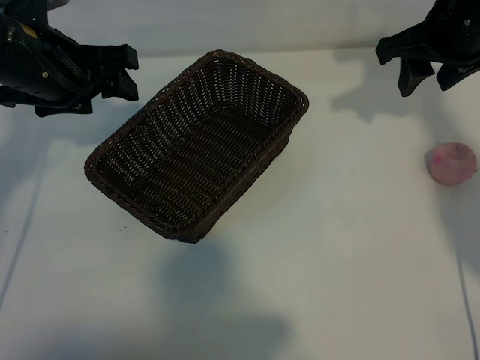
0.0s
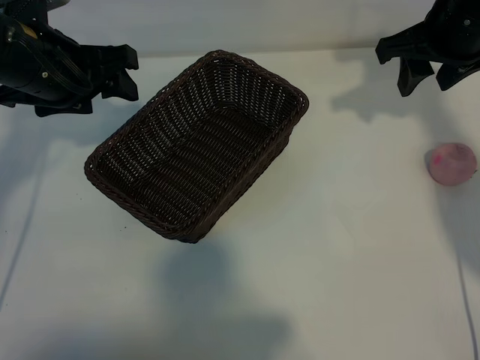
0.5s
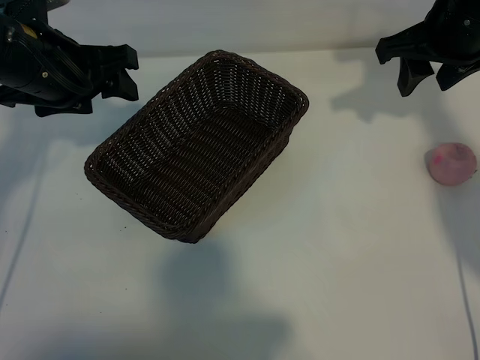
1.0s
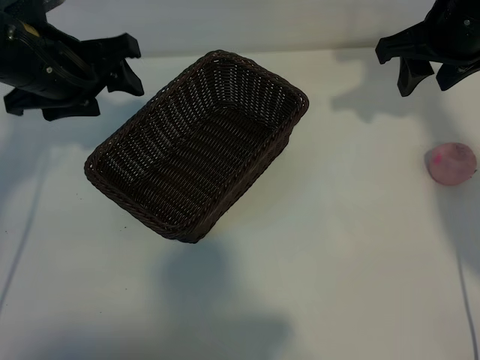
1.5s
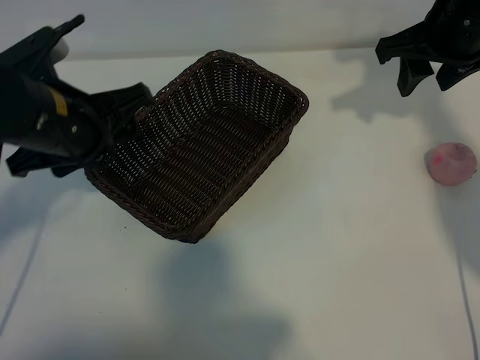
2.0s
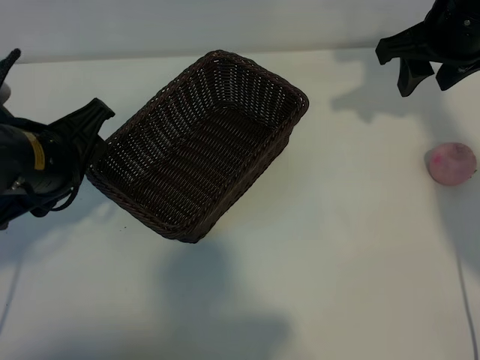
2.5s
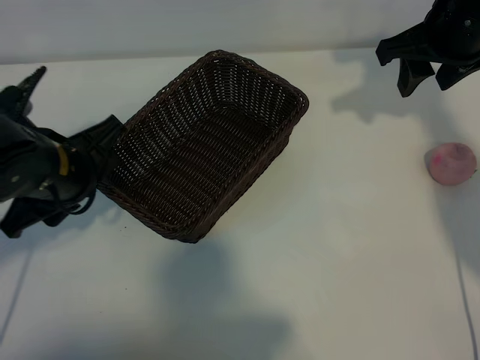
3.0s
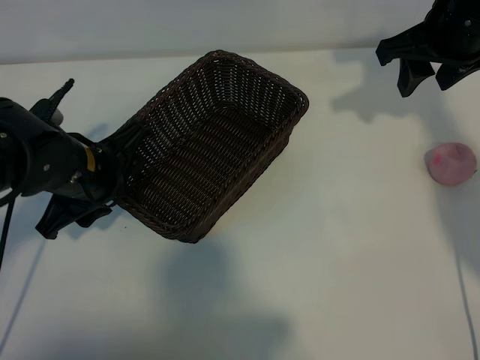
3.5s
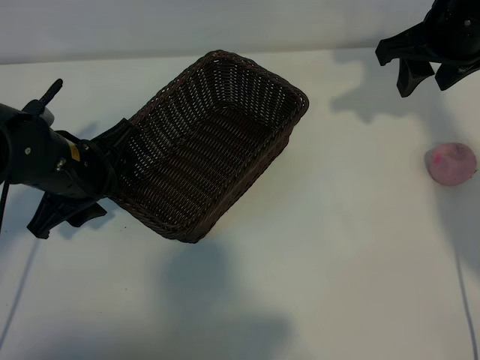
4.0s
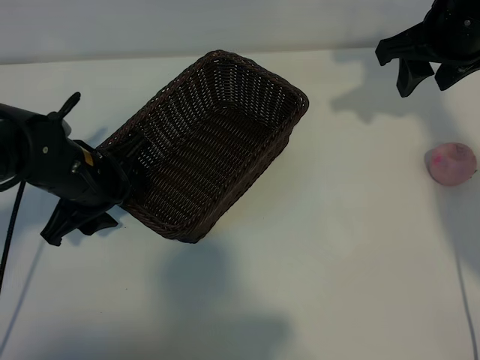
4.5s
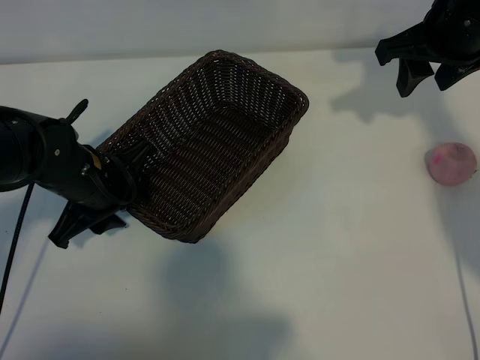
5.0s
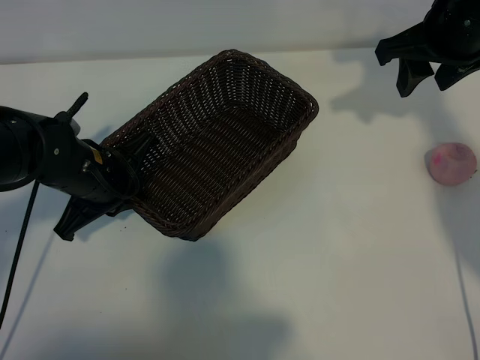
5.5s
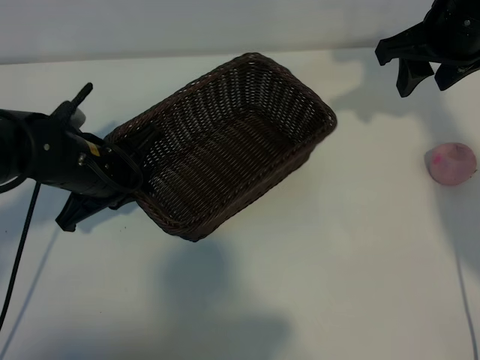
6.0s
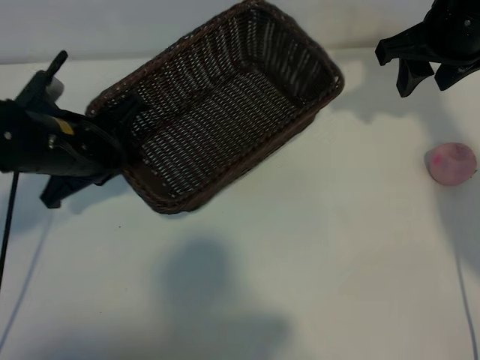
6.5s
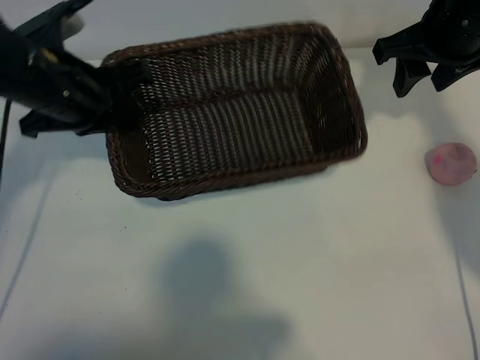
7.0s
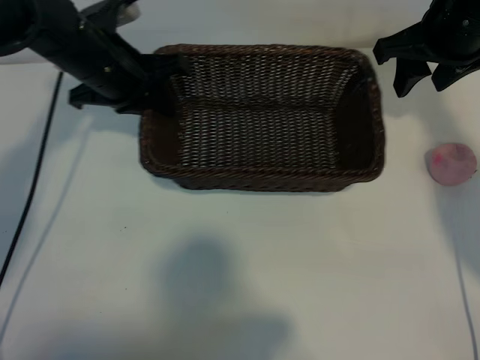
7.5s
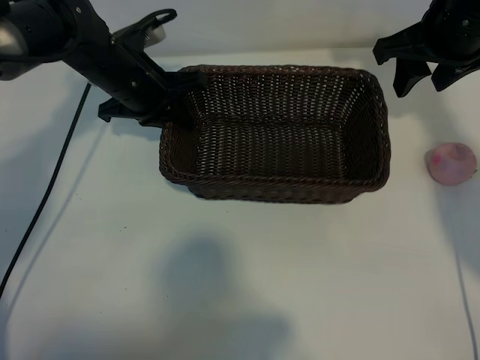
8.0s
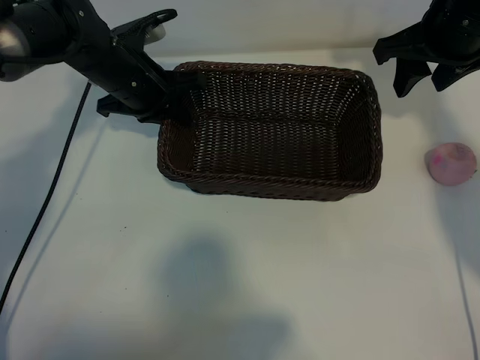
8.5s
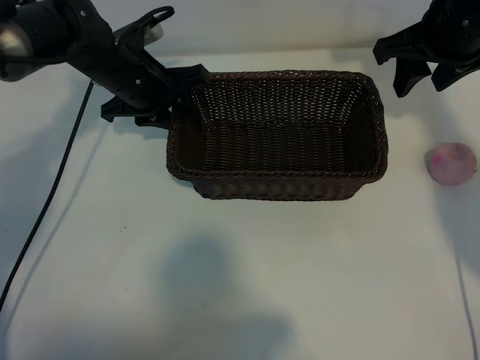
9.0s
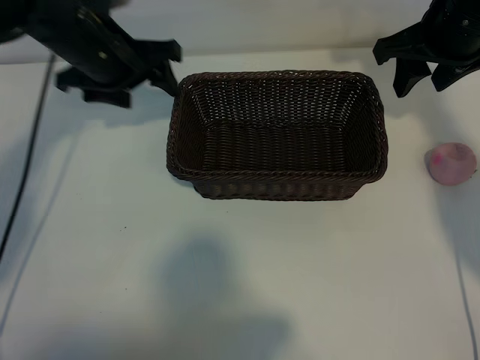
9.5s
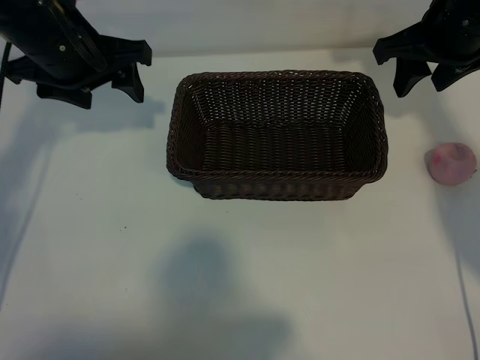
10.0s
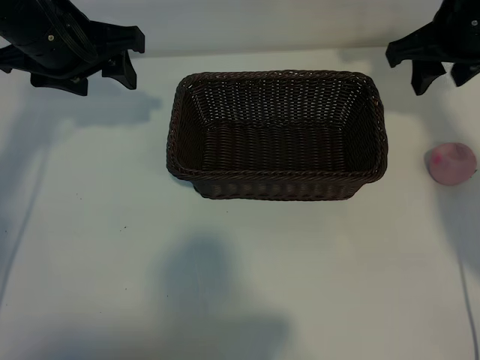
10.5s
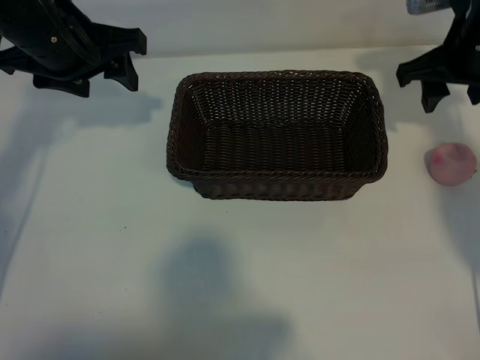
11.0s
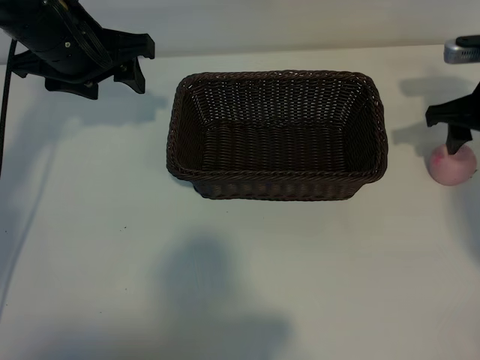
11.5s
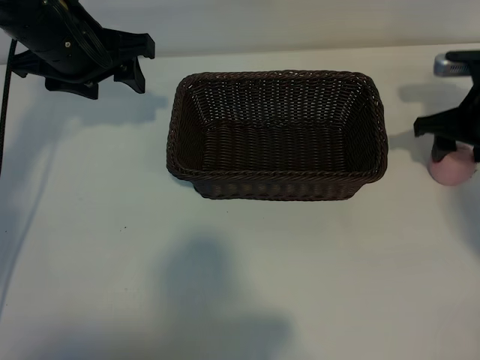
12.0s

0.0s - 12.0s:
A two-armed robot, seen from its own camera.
Task of the whole recording: pick up the peach and put it into the basket.
Step, 1.5s - 5.5s: Grasp the basket with left gripper.
Step, 6.0s - 9.0s: Place the basket in the center of view with left gripper.

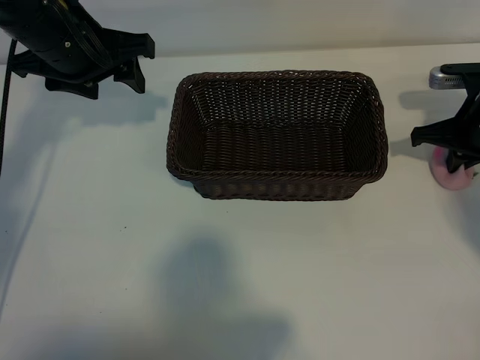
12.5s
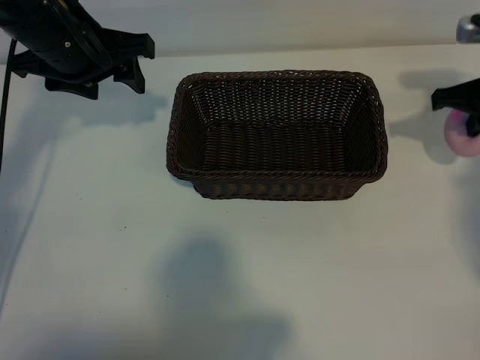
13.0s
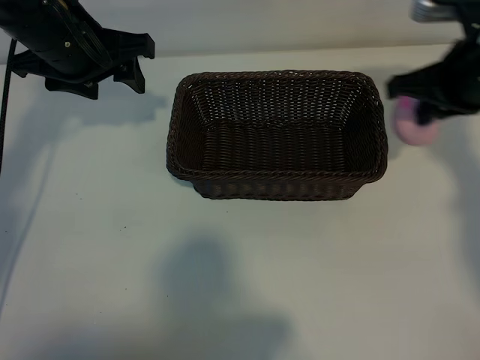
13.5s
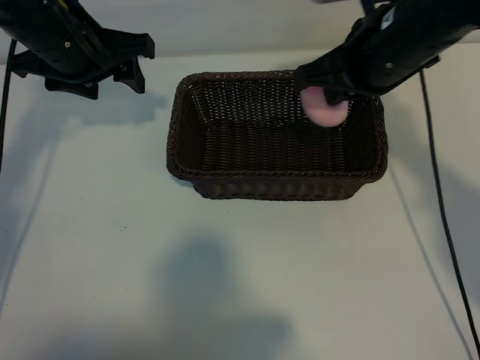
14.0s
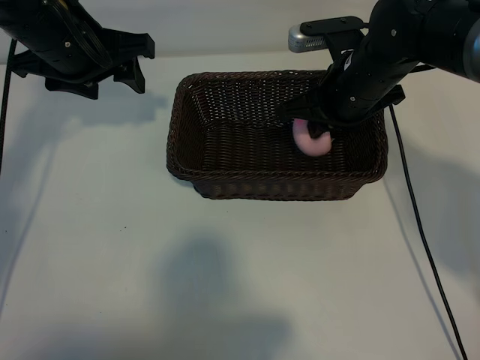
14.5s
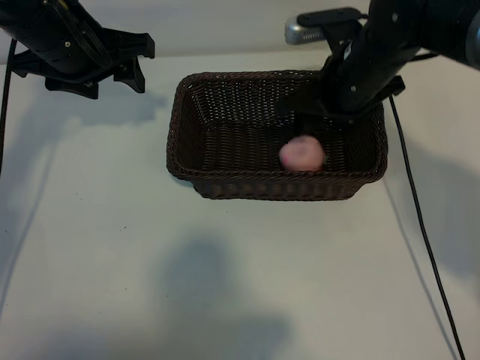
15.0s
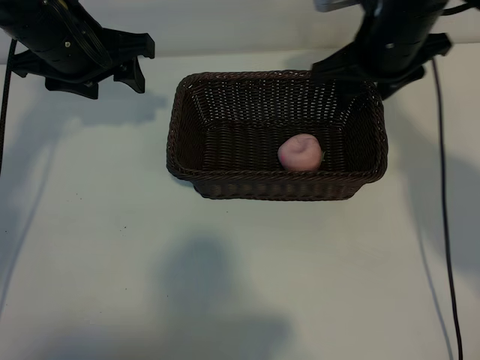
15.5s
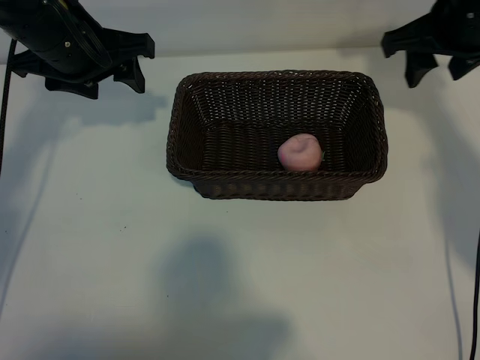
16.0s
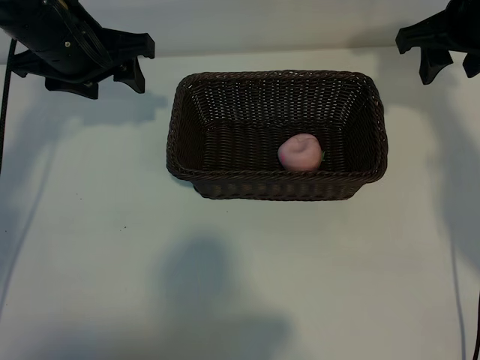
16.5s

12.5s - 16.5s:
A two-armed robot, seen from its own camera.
Task of the whole recording: pick up the peach and put it into the basket.
Step, 13.0s - 15.0s: Place the peach in the basket with right gripper.

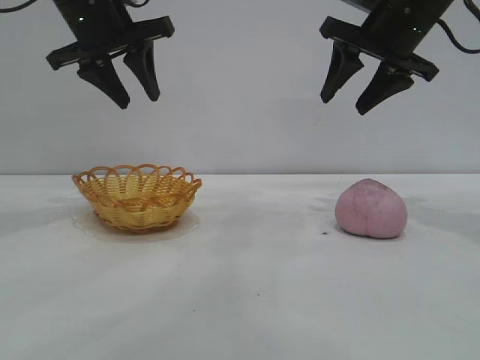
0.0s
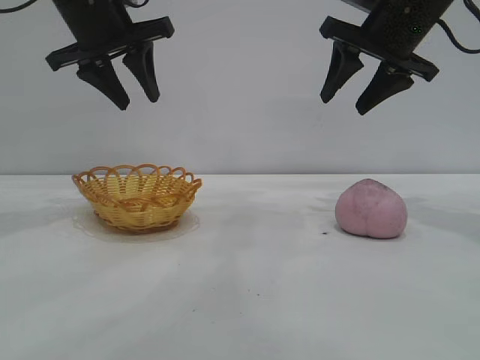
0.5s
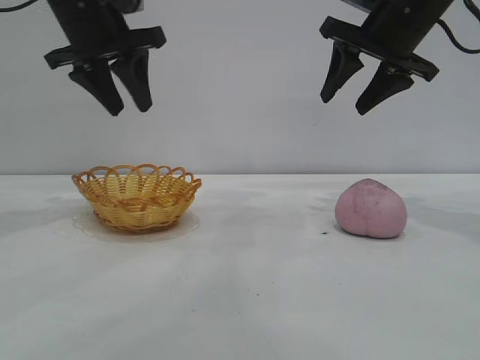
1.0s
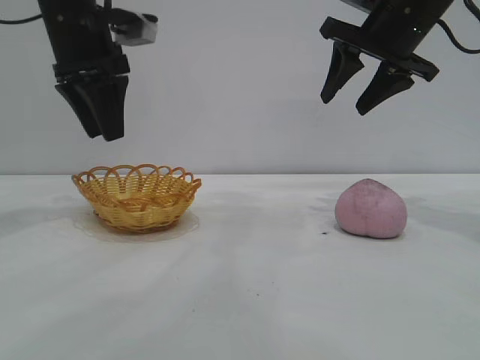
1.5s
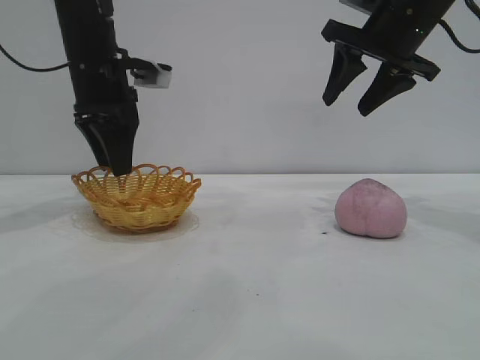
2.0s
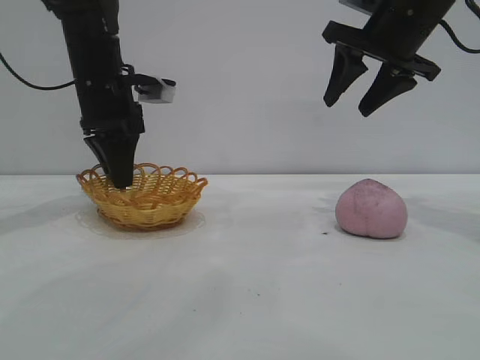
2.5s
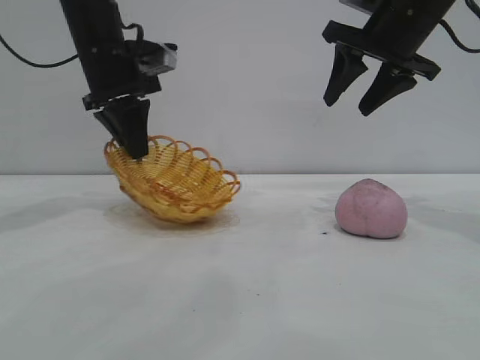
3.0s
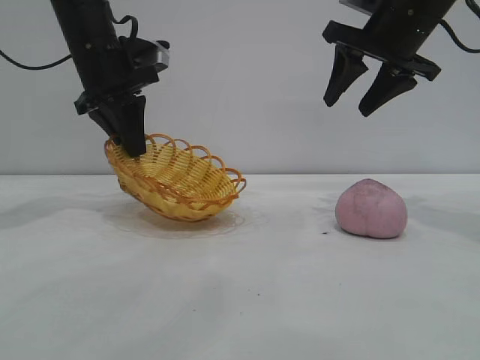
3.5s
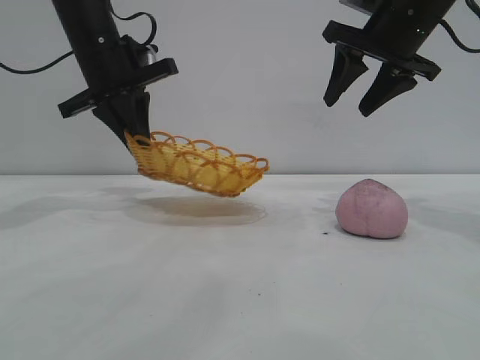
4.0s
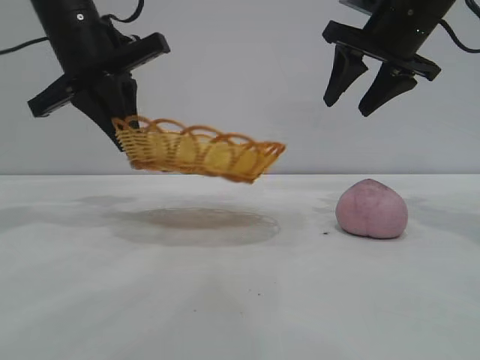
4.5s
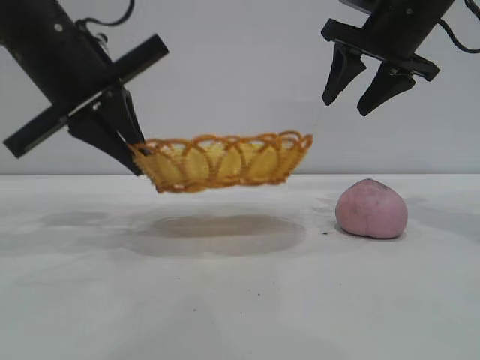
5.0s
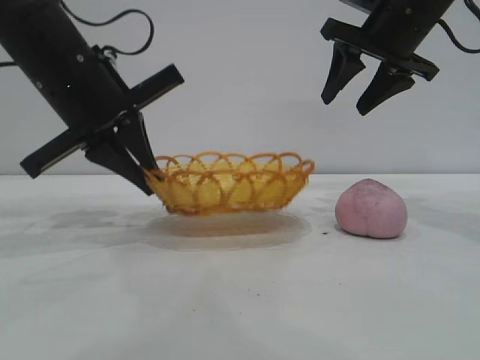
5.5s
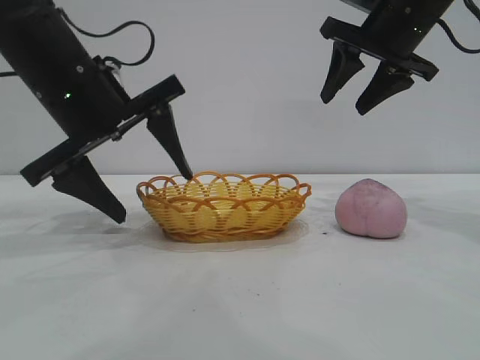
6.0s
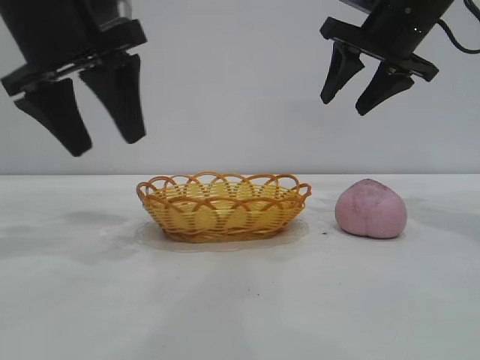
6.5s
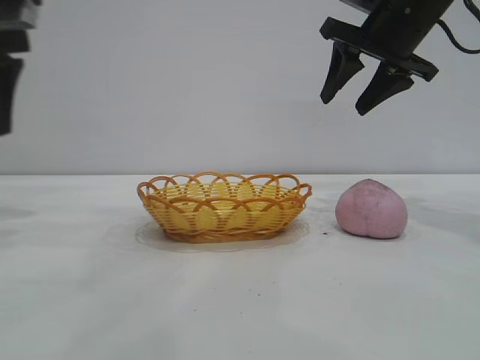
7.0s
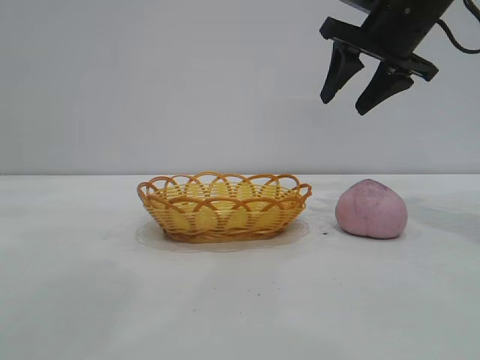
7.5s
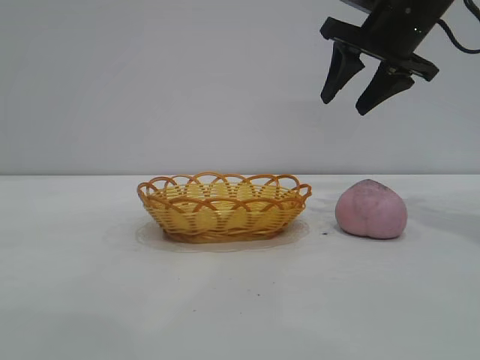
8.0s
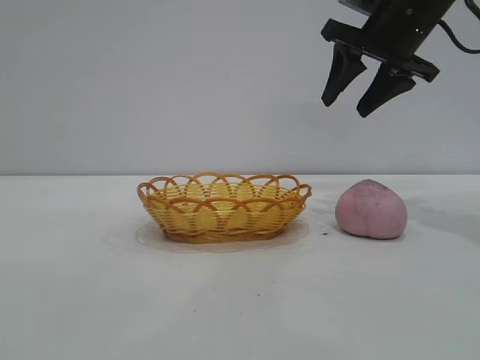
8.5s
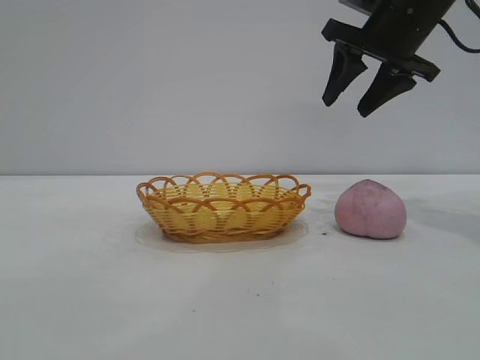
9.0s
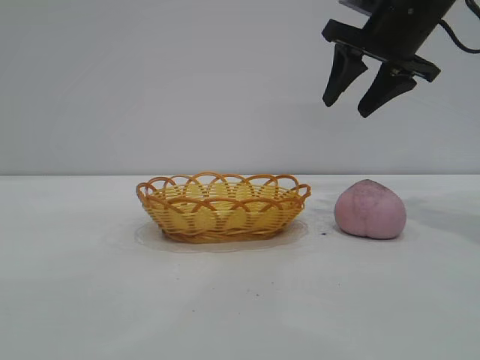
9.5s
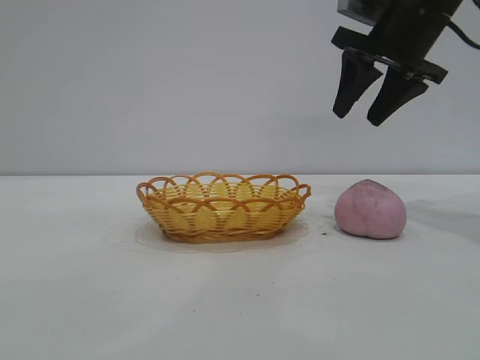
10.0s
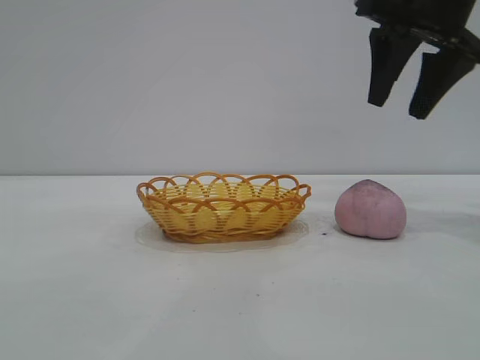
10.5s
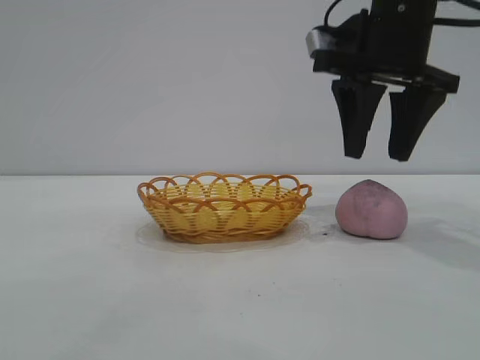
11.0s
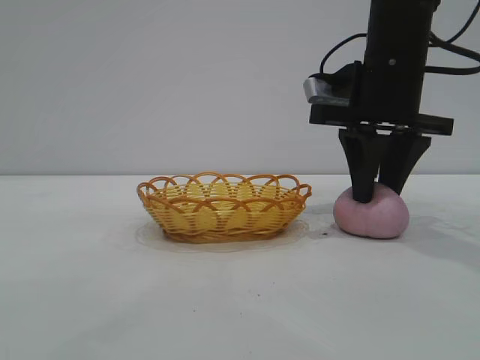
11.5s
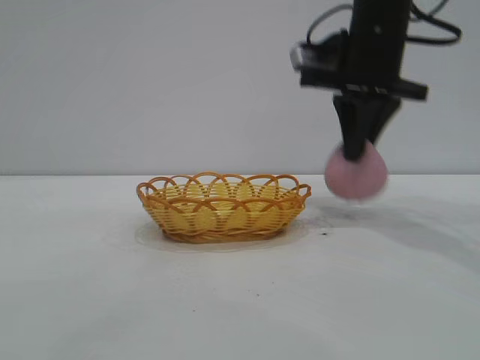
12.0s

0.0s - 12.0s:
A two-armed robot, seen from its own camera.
Task of the whole recording: pick up the peach and put it into the basket.
Step, 0.0s - 6.0s: Move the basket to the center of view.
Step, 6.5s - 12.0s: Pick up the peach.
